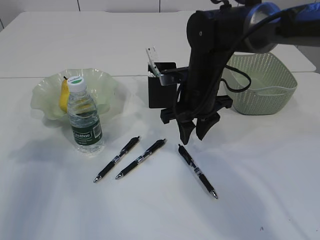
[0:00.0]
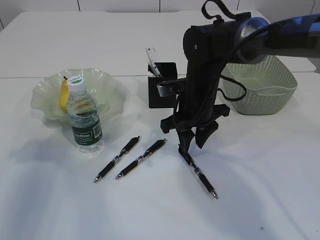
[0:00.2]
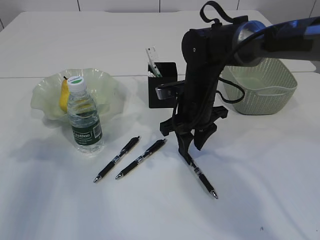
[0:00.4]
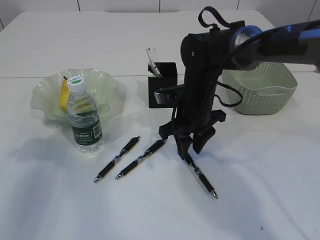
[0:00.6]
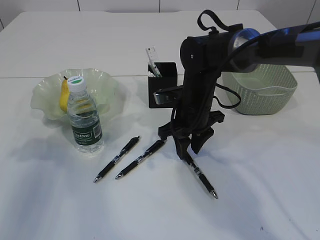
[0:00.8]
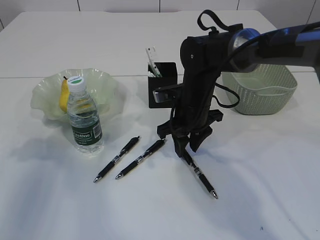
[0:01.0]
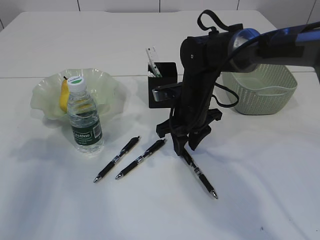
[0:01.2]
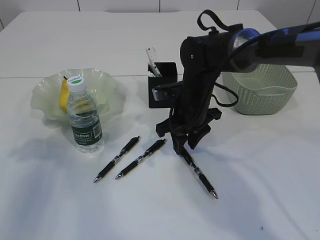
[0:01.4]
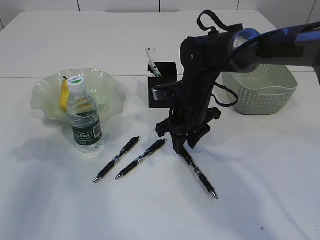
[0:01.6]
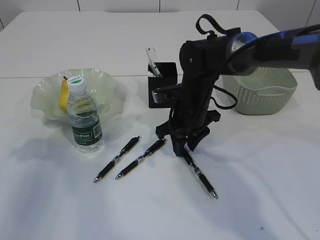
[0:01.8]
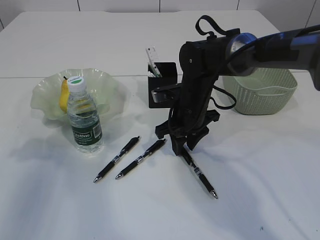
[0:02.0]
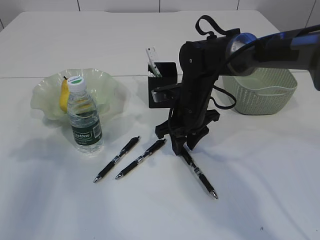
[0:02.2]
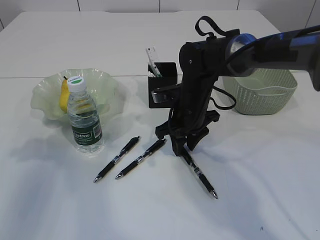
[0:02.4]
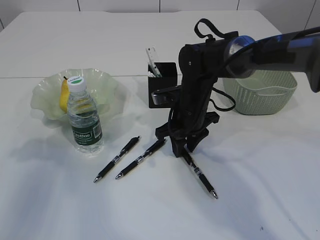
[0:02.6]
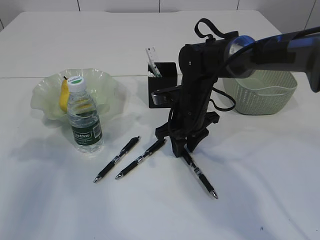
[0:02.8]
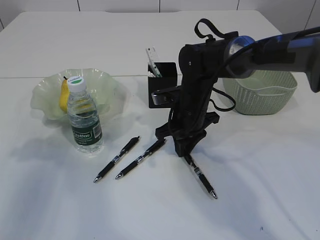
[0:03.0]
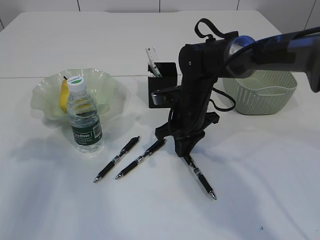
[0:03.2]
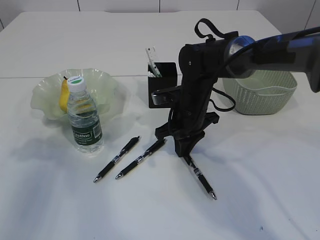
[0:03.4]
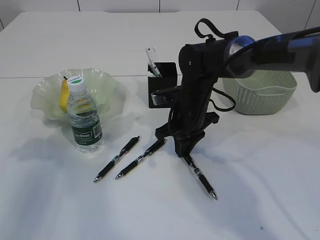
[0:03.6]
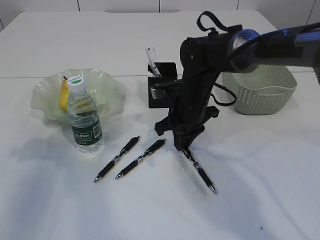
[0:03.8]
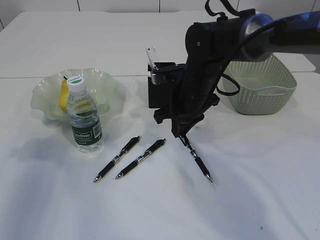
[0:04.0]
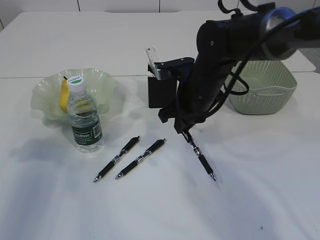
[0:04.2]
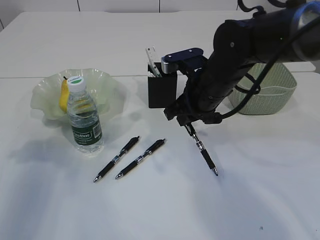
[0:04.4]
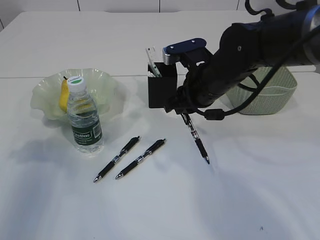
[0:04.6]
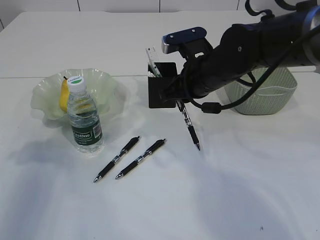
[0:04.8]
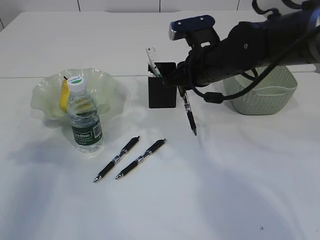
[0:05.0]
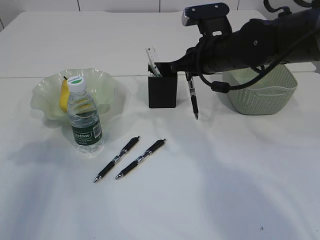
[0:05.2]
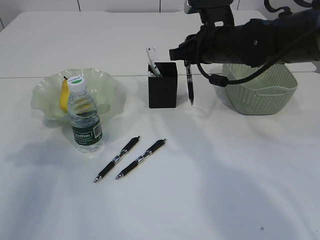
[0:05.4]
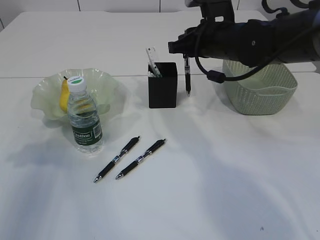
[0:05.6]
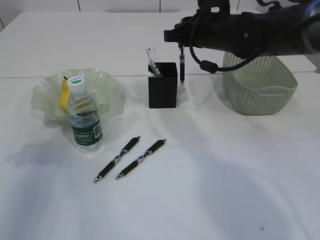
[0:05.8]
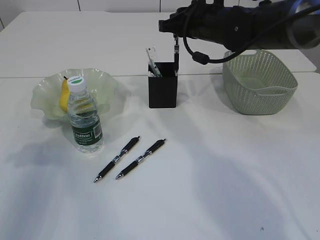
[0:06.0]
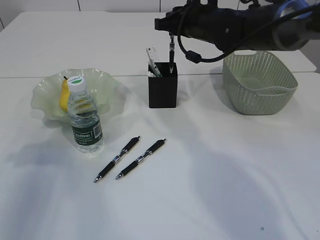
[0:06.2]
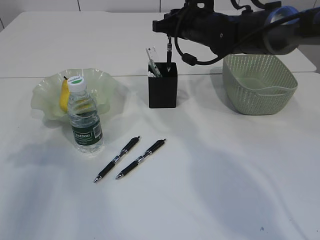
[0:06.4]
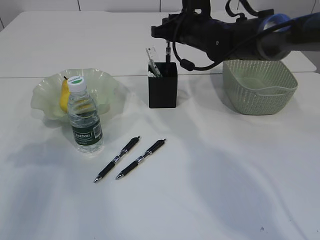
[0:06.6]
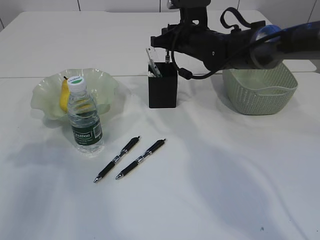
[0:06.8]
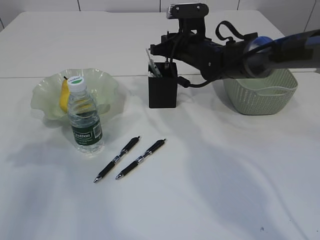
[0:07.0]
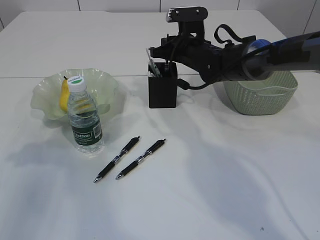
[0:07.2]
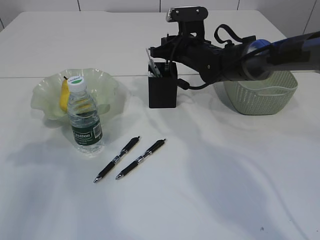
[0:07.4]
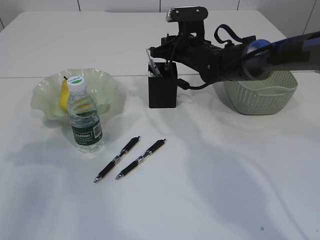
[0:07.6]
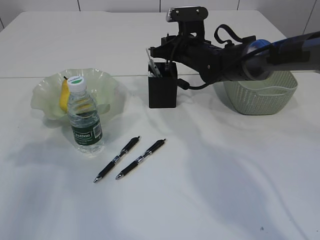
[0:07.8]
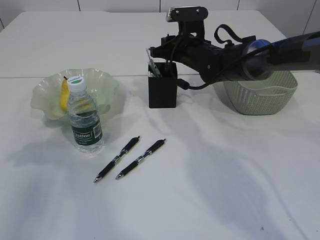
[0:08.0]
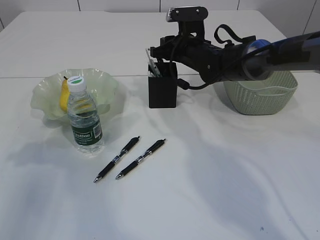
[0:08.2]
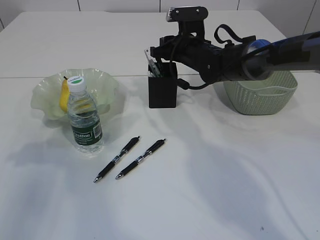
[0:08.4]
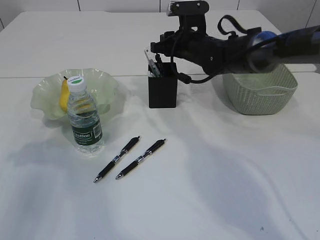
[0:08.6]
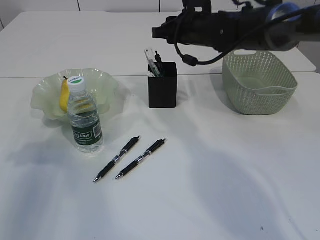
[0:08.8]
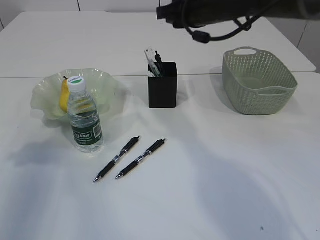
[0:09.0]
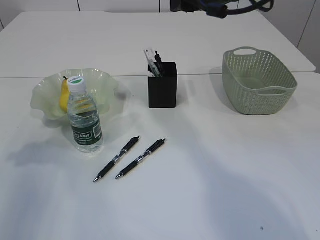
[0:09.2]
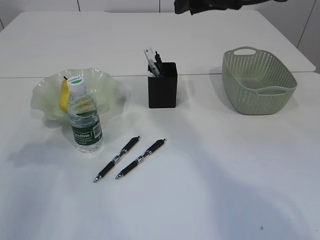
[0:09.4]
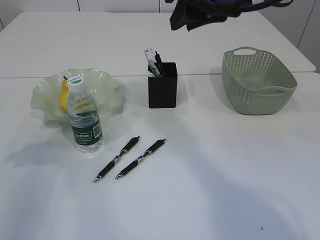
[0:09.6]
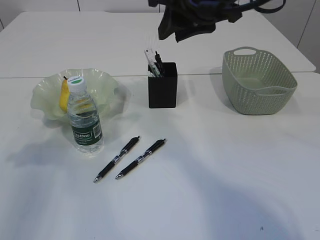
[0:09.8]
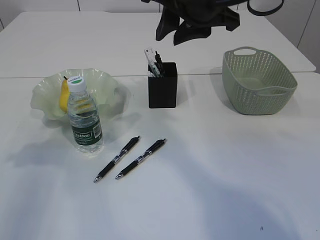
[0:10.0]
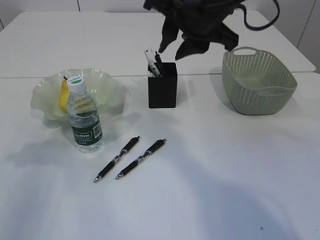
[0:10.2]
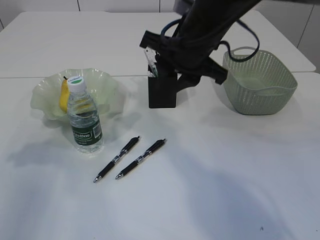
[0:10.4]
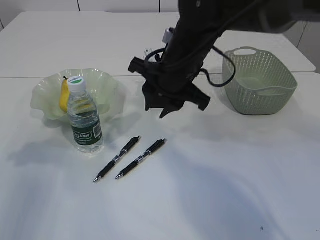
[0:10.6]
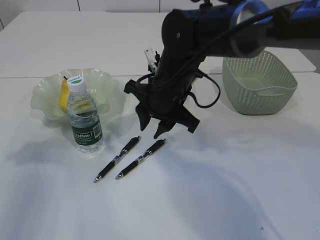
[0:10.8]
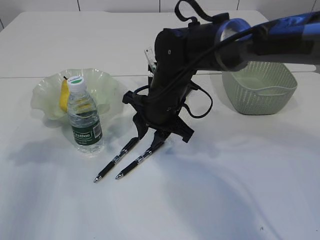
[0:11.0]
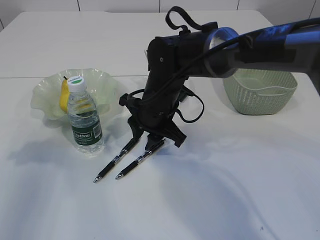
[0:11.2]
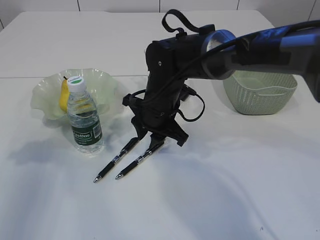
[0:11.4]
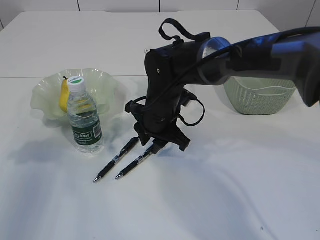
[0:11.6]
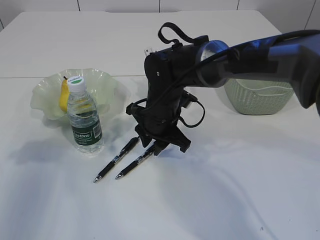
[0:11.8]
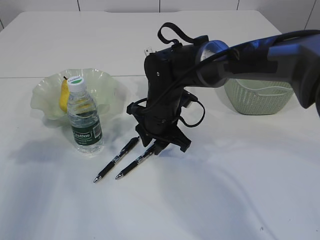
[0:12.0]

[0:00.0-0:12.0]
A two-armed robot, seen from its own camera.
Step, 0:00.0 to 0:04.4: Pick up the pen with right arm.
Step, 0:04.6 to 0:08.8: Place the pen into the pen holder.
0:00.0 to 0:01.6: The grippers make only small movements.
0:01.6 to 0:03.0: There are only small adjustments of the grippers.
0:03.0 to 0:04.4: The right gripper heads upward, covering approximately 5 cm.
0:04.4 to 0:06.0: The right gripper goes roughly 10 cm forward and upward.
0:06.0 to 0:07.6: The right gripper shifts about 10 cm downward.
0:07.6 to 0:09.0: The right gripper moves upward, some 10 cm.
0:09.0 to 0:10.4: The right gripper shifts roughly 10 cm backward.
0:10.4 to 0:12.0: The right gripper moves downward, roughly 15 cm.

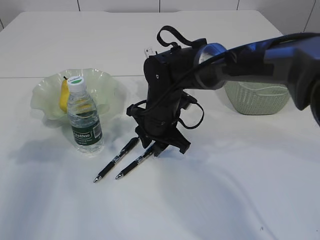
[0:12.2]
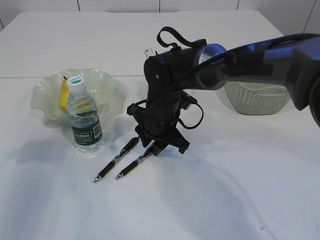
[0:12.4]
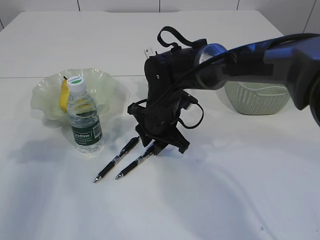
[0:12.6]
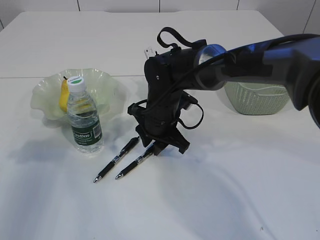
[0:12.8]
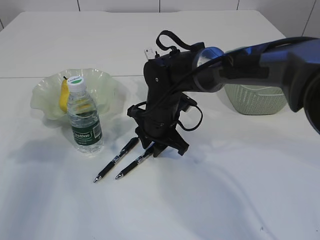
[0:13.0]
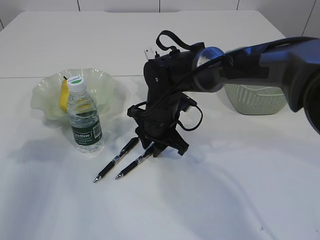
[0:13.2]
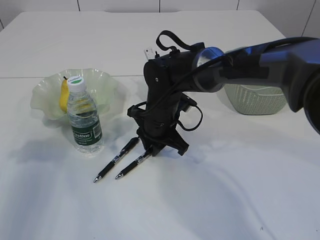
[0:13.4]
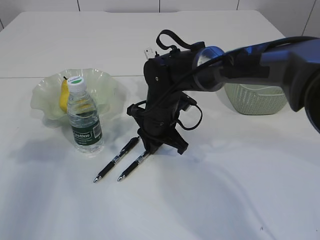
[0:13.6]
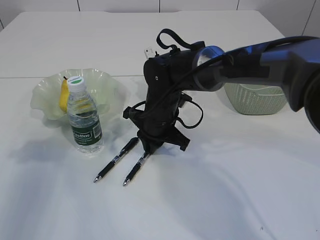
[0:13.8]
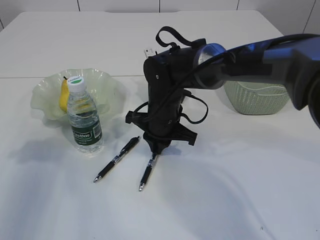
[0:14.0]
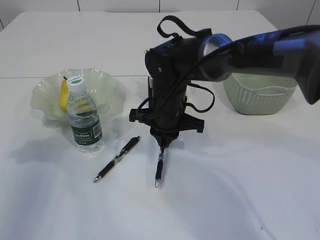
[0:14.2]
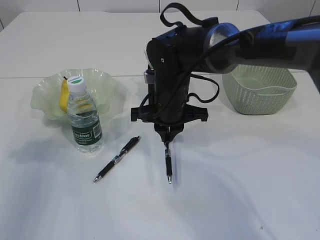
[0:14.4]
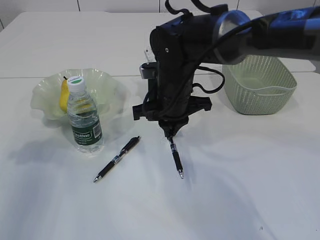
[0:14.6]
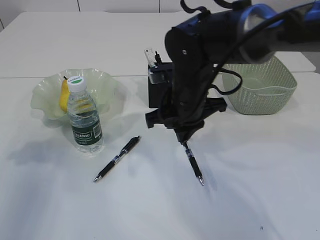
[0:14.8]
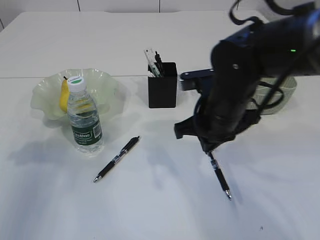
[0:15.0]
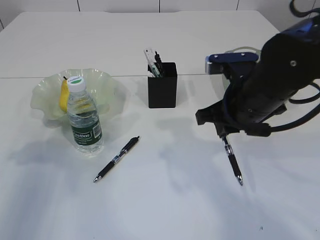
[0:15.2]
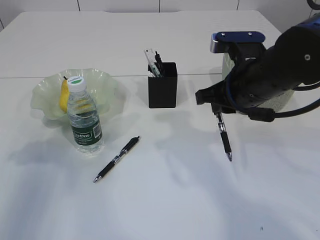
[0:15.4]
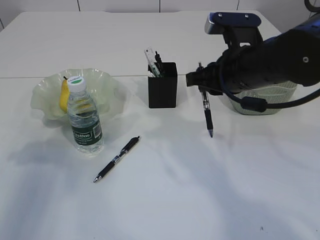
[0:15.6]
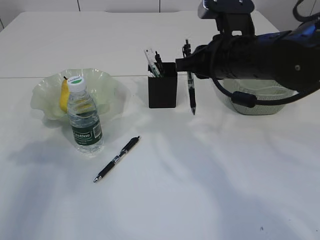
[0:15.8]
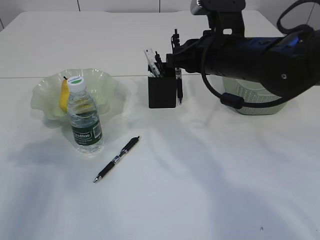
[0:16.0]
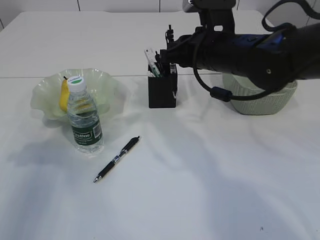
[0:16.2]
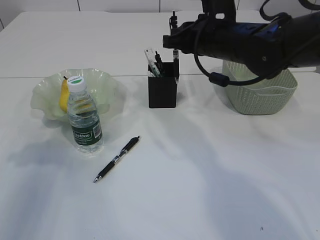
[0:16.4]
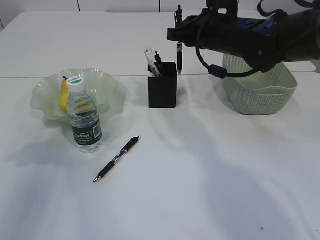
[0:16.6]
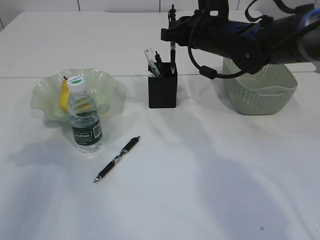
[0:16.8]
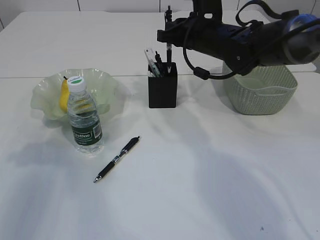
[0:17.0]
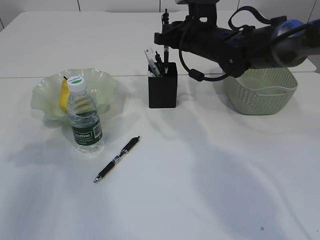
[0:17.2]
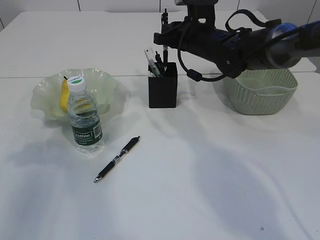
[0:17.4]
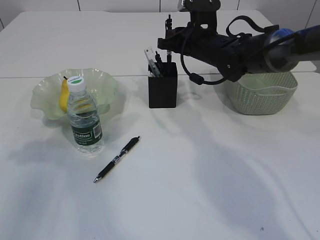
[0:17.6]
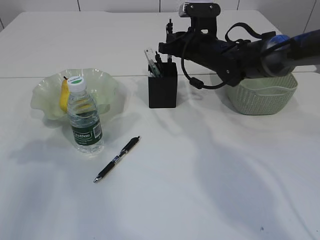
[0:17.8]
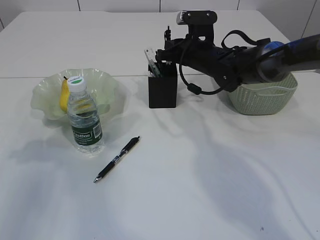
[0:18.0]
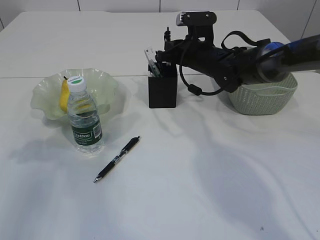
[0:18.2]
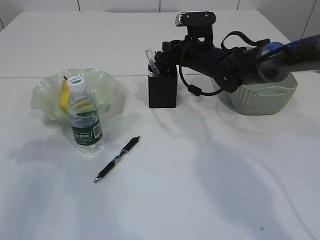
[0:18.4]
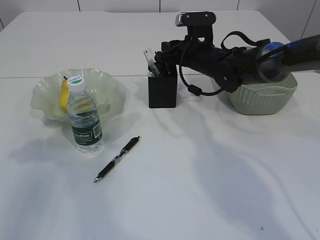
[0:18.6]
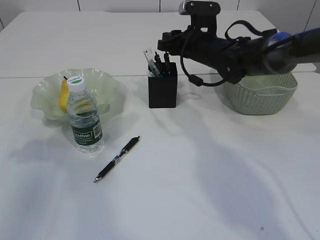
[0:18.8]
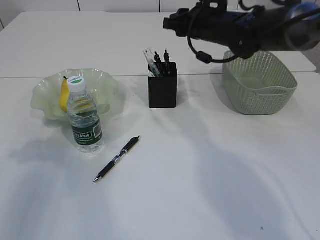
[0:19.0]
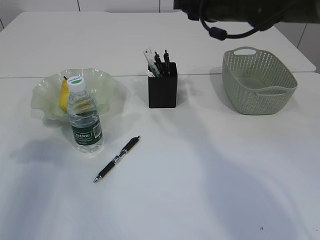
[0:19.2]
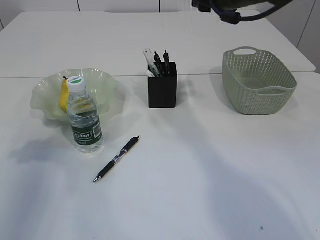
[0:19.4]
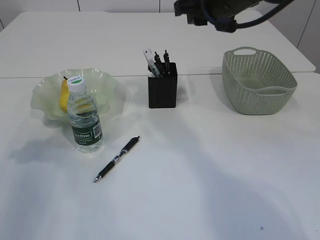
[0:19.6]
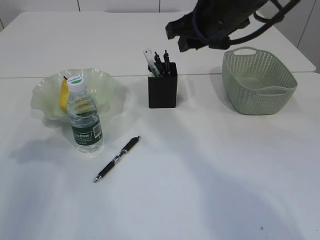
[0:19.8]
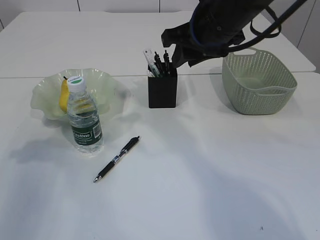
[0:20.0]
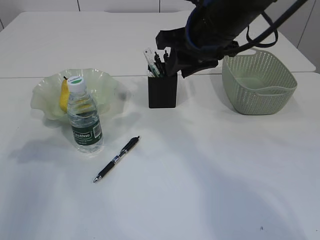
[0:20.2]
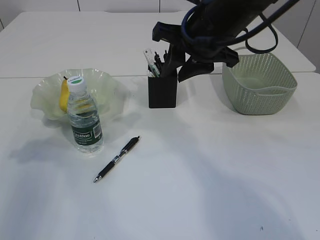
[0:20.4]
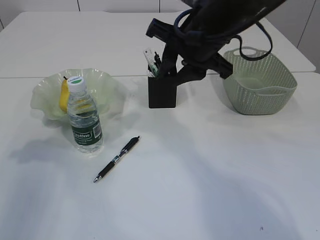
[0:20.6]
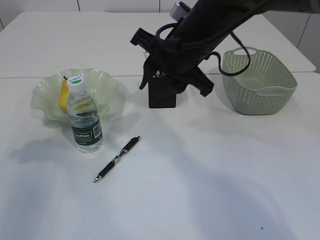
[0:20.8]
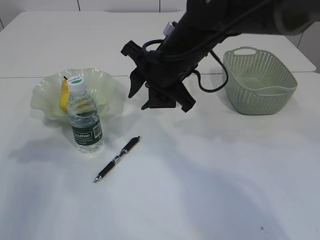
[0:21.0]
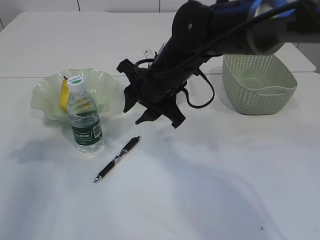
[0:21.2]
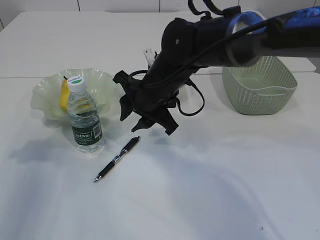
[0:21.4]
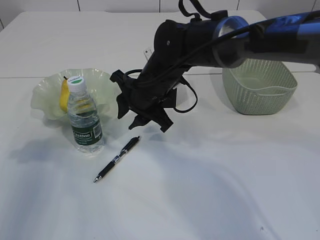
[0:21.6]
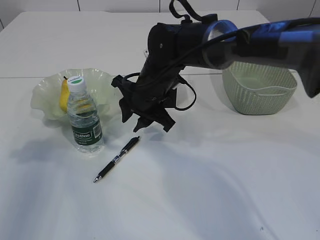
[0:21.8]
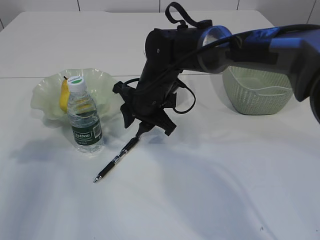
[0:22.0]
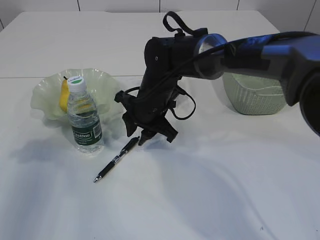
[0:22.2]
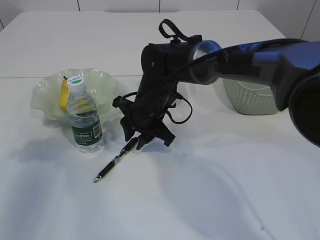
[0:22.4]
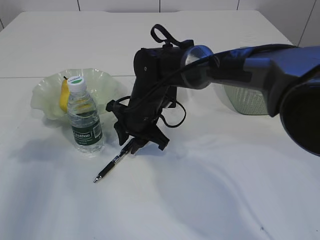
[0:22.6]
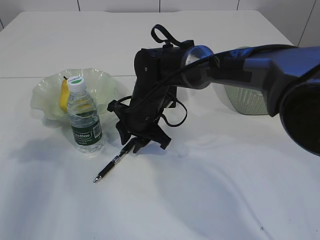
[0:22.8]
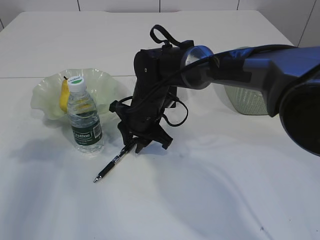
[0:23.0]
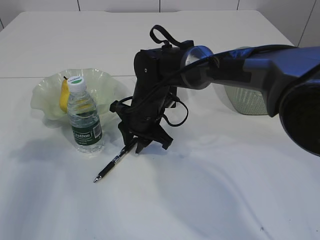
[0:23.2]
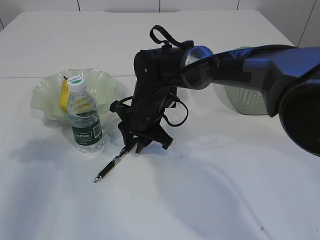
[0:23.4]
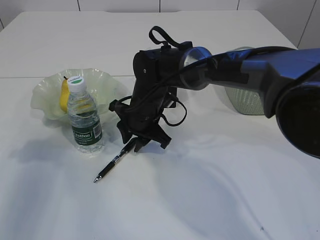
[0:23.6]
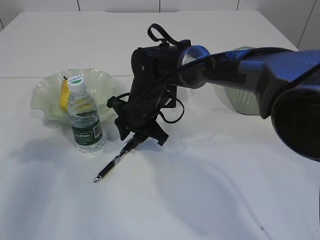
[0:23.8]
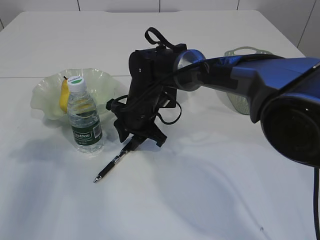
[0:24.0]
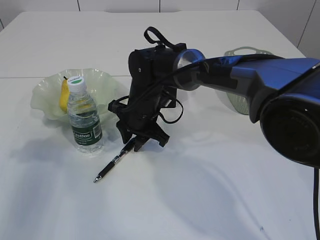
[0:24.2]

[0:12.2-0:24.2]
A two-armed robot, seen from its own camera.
Step, 0:12.2 to 0:14.6: Pick up the pen with right arm.
Step, 0:14.8 to 0:18.8: Place the pen into the pen holder.
0:12.2 to 0:13.8: The grippers move only a little.
0:13.8 to 0:15.2: The right gripper goes about 20 cm to the right, upward and backward.
0:15.2 to 0:16.6: The right gripper heads forward, covering approximately 10 cm.
0:16.6 to 0:18.2: The right gripper travels downward and forward by about 10 cm.
0:18.2 to 0:19.8: The right gripper heads upward and backward, covering approximately 15 cm.
0:19.8 to 0:21.2: The right gripper goes roughly 15 cm downward and to the left.
0:21.2 to 0:22.6: The right gripper heads downward, covering roughly 10 cm.
0:22.6 to 0:24.2: The grippers make only small movements.
